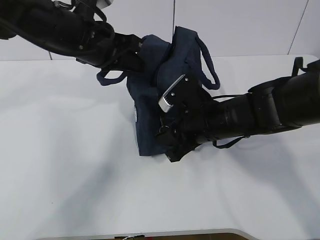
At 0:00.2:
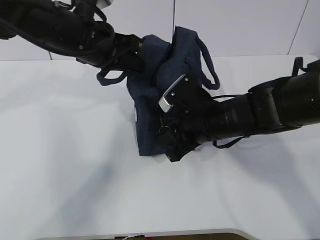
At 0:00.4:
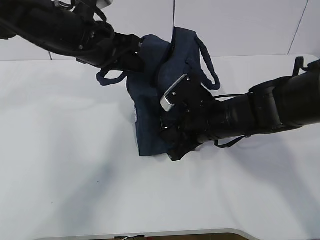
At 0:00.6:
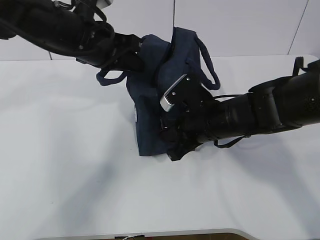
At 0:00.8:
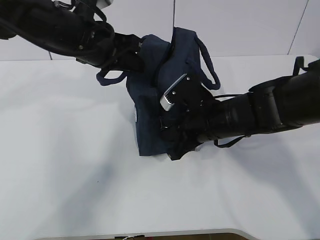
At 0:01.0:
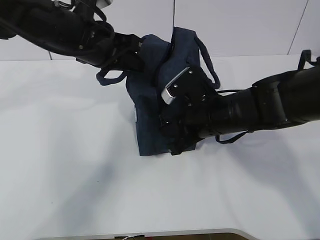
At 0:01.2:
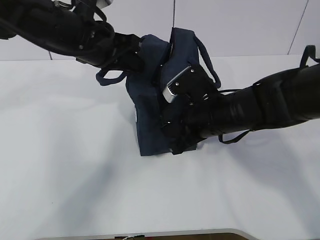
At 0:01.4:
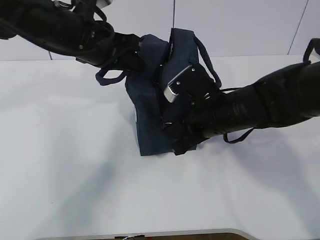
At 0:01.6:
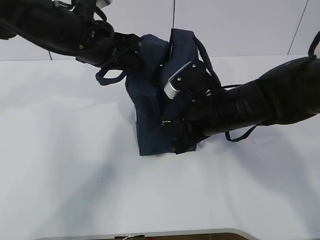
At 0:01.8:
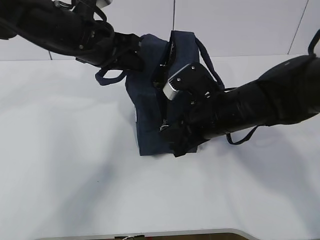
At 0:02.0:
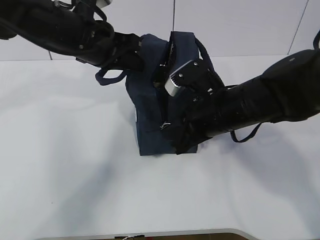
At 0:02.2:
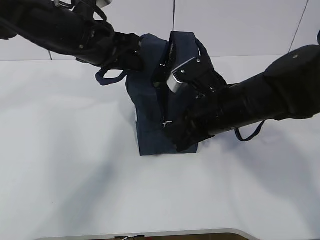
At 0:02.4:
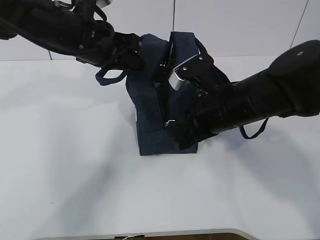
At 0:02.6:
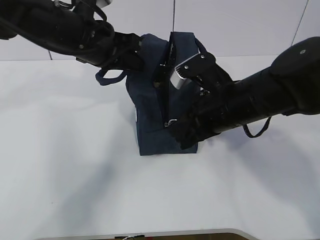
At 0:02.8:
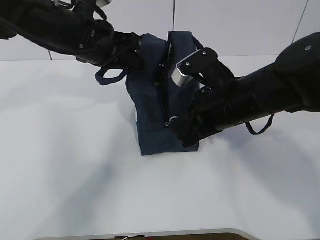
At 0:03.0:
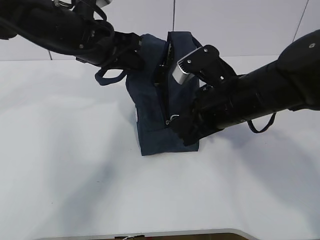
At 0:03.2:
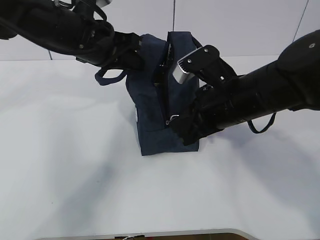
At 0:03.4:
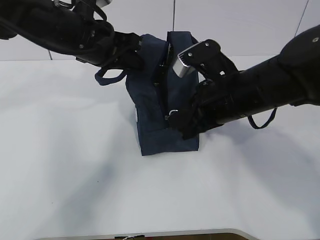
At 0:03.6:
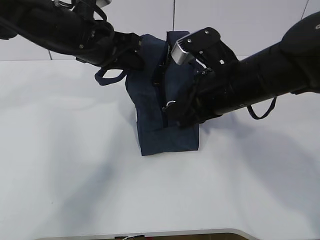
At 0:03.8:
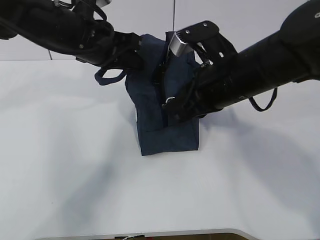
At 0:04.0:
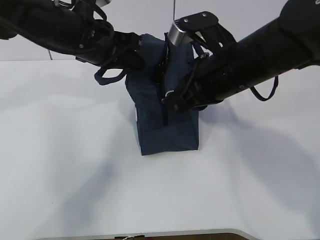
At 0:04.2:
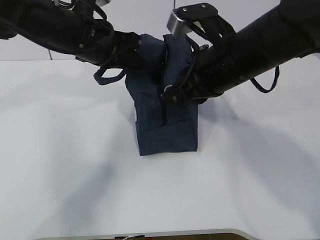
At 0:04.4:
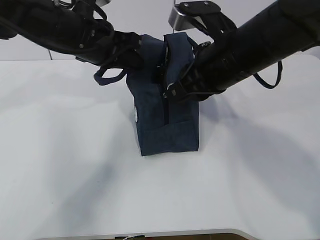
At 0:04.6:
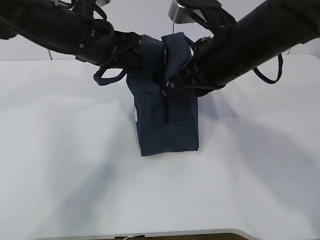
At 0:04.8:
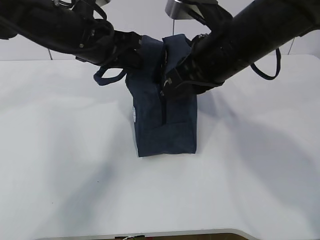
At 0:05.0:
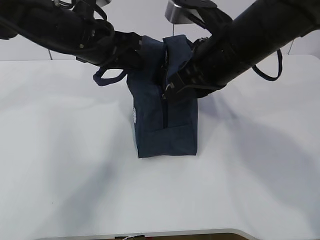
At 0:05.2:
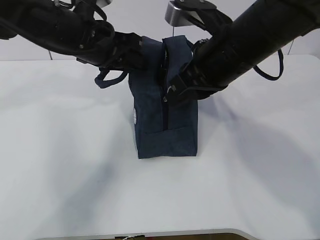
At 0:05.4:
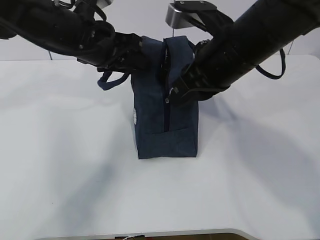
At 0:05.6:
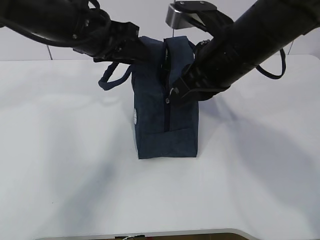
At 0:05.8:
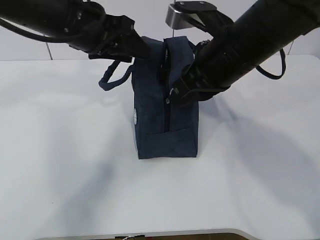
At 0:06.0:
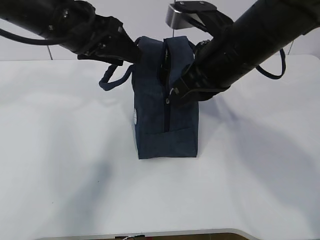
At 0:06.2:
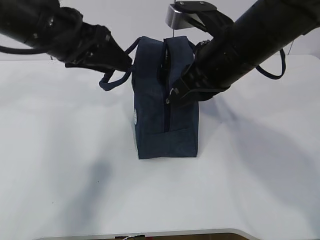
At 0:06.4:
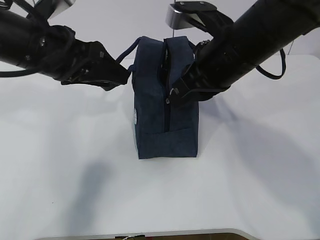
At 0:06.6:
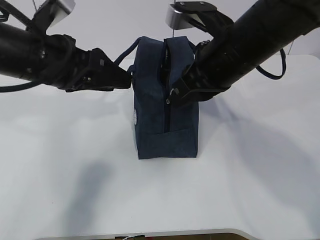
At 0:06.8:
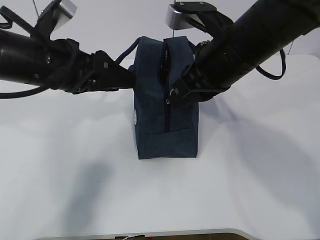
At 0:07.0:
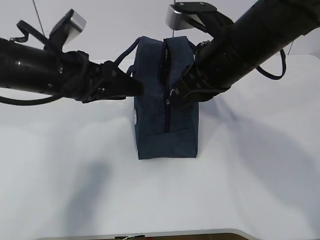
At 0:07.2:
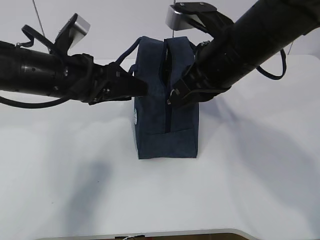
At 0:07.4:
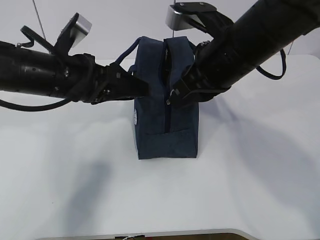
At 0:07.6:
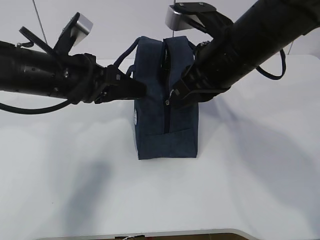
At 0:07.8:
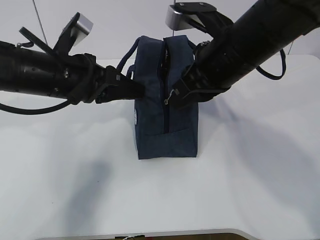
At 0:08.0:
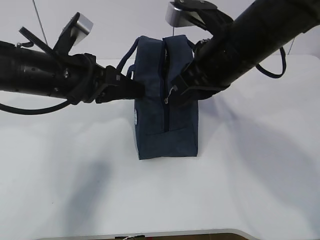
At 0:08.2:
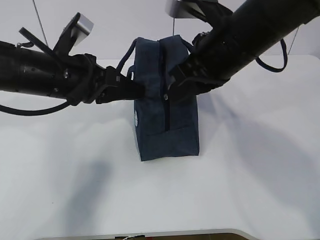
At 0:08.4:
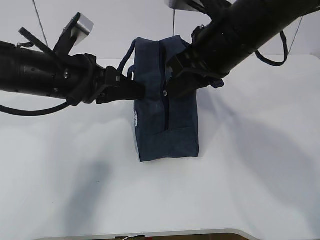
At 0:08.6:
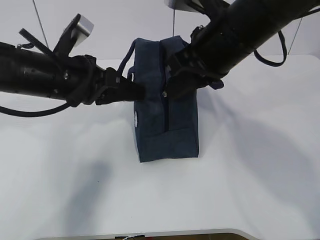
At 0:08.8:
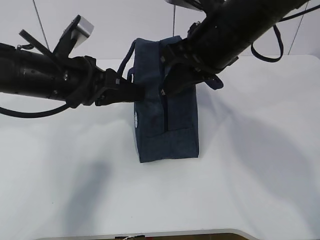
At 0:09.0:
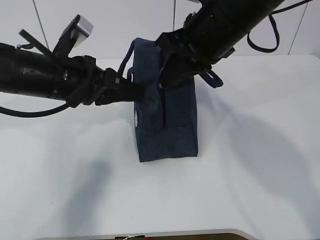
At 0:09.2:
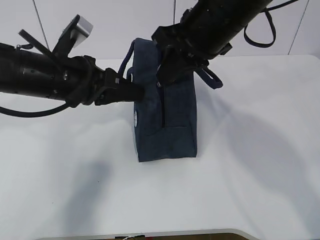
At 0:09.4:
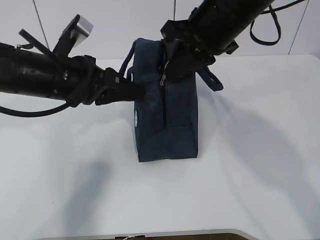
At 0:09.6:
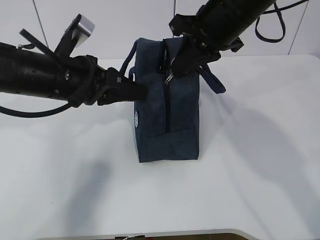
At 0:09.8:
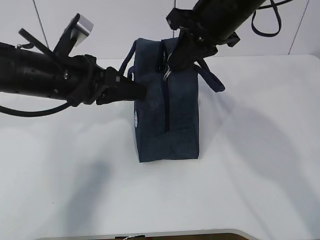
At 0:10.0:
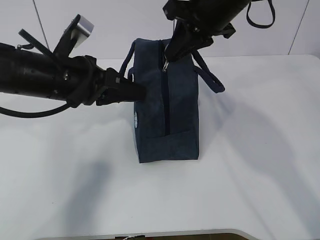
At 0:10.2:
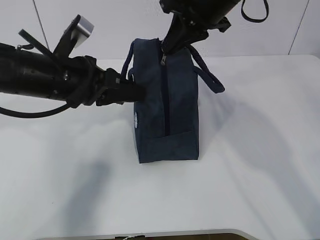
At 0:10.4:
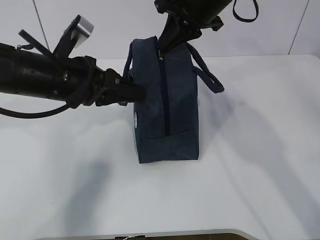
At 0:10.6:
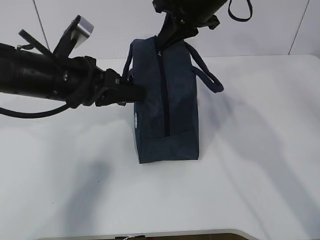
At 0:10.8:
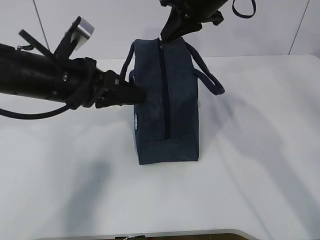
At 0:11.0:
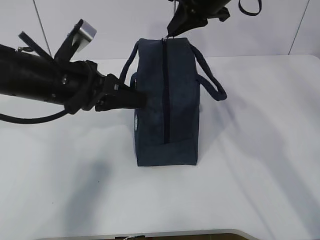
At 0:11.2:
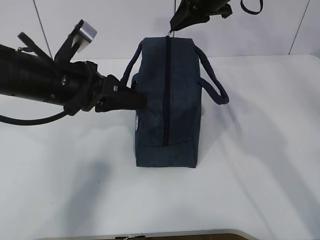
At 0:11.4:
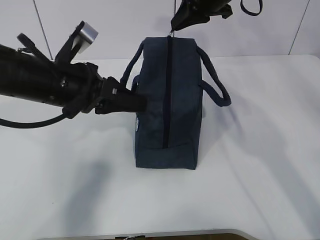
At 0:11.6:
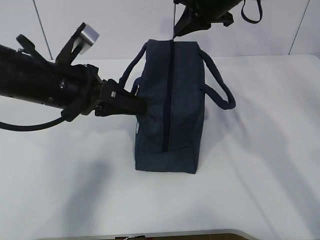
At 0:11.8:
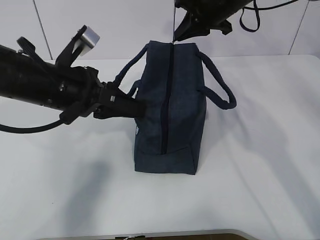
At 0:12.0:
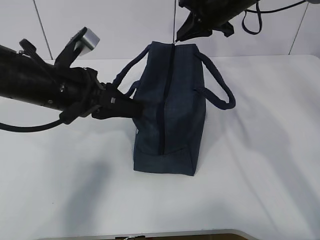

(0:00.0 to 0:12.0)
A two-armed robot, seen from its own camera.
Step, 0:00.0 - 0:09.2: Grab the lunch bag with your left hand.
0:00.0 - 0:01.6: There are only small adjustments of the grippers.
0:01.6 - 0:03.0: There are only small adjustments of the grippers.
0:03.0 - 0:04.4: The right gripper heads upward, covering approximately 5 cm.
0:04.4 - 0:06.0: The left gripper opens up.
0:06.0 - 0:07.6: The left gripper travels downward by some 5 cm, and closes up.
0:07.6 - 0:09.0: The left gripper closes up.
0:09.0 - 0:10.4: The right gripper moves forward, about 10 cm.
0:10.4 - 0:12.0: The right gripper goes about 10 cm forward and to the right.

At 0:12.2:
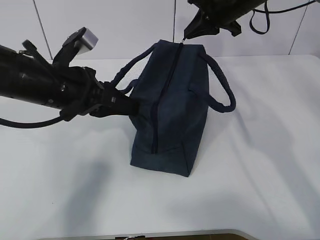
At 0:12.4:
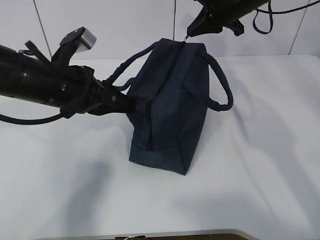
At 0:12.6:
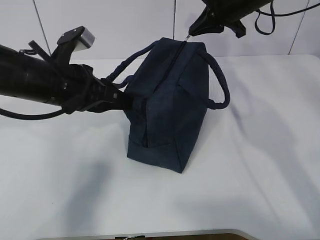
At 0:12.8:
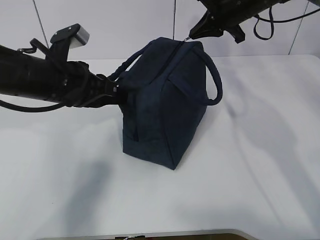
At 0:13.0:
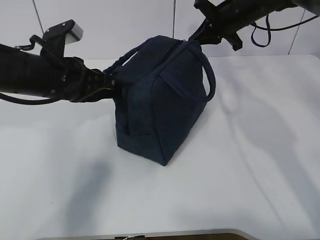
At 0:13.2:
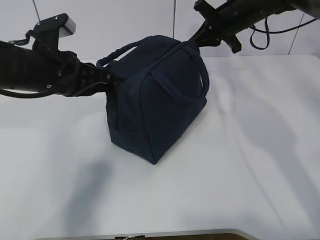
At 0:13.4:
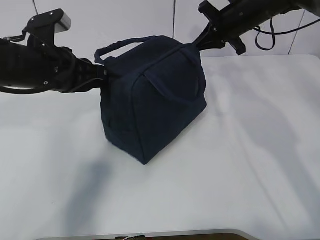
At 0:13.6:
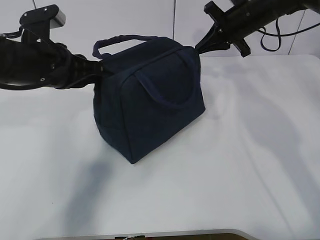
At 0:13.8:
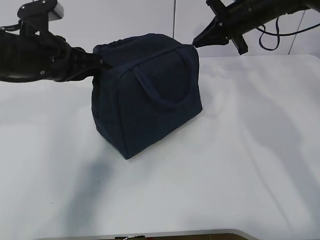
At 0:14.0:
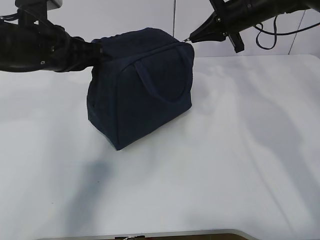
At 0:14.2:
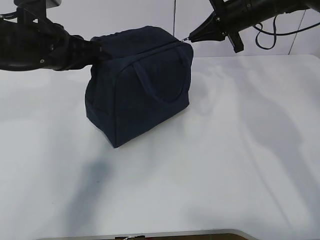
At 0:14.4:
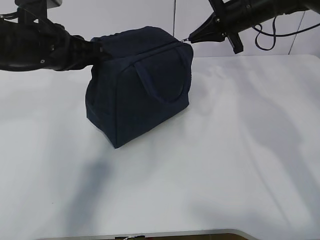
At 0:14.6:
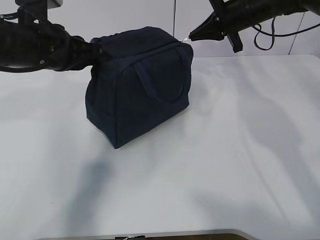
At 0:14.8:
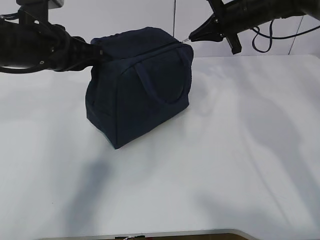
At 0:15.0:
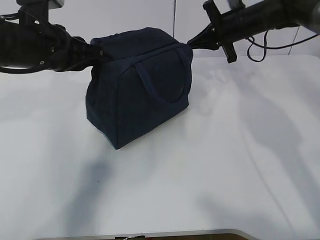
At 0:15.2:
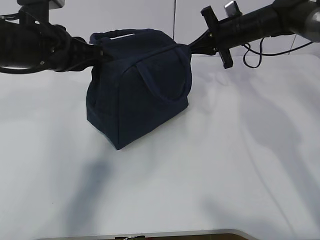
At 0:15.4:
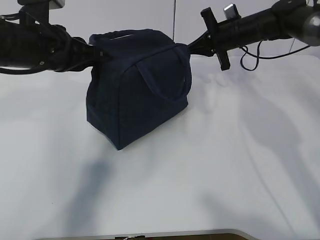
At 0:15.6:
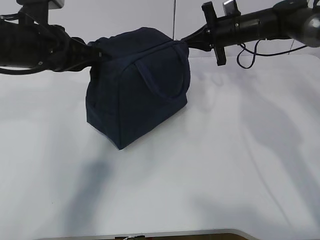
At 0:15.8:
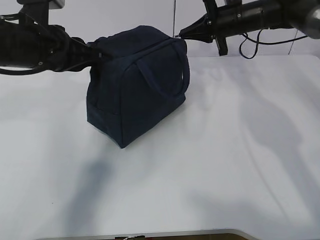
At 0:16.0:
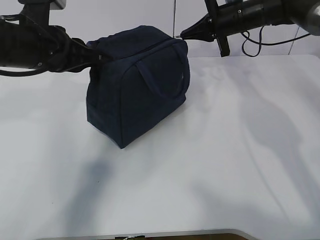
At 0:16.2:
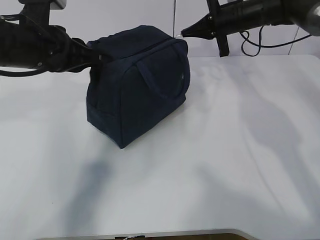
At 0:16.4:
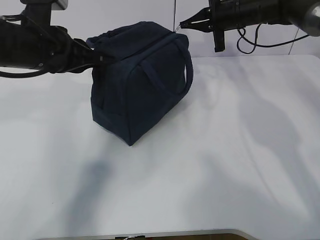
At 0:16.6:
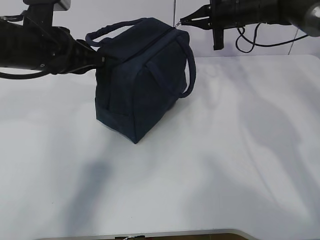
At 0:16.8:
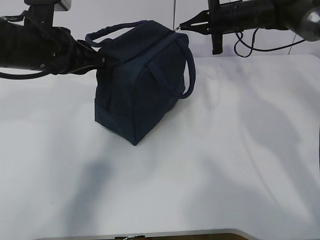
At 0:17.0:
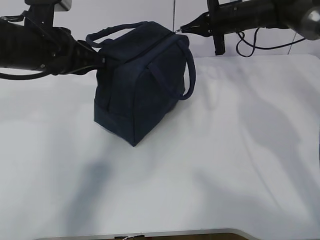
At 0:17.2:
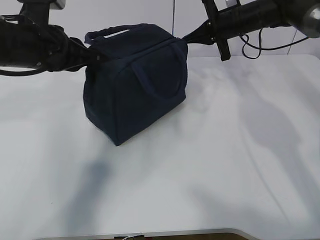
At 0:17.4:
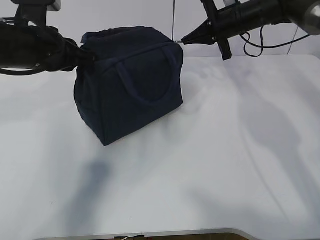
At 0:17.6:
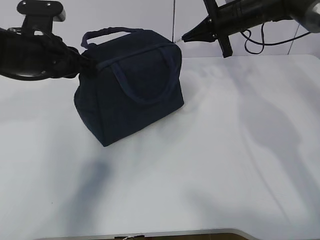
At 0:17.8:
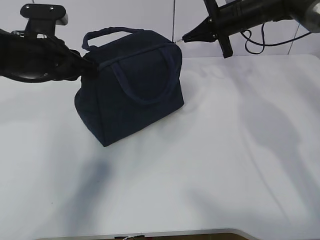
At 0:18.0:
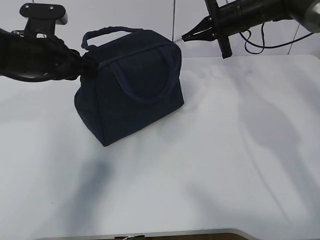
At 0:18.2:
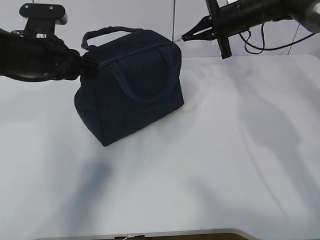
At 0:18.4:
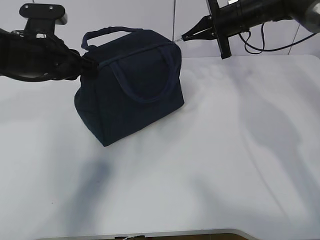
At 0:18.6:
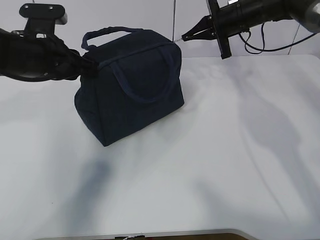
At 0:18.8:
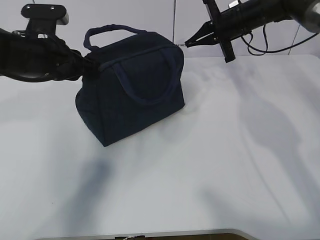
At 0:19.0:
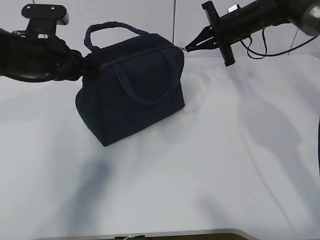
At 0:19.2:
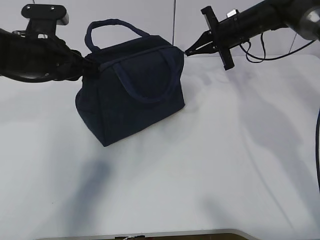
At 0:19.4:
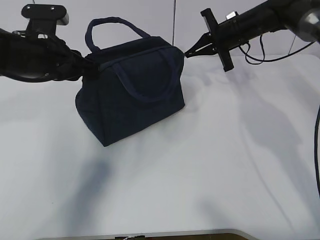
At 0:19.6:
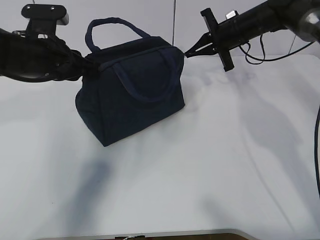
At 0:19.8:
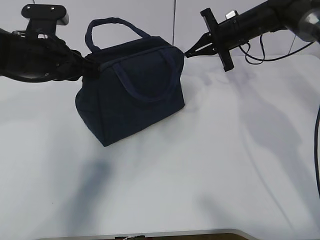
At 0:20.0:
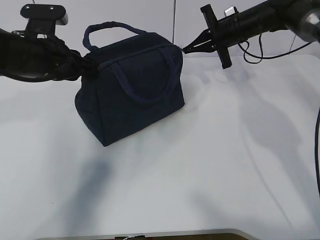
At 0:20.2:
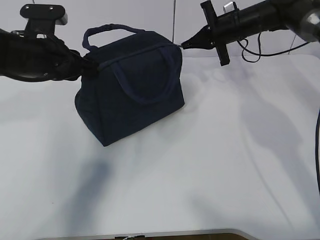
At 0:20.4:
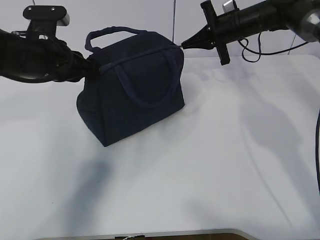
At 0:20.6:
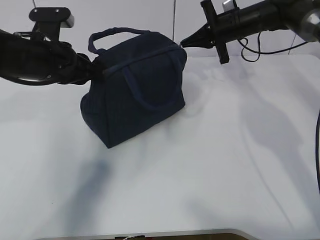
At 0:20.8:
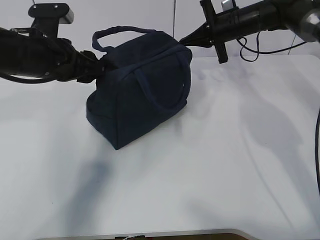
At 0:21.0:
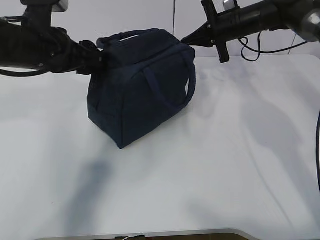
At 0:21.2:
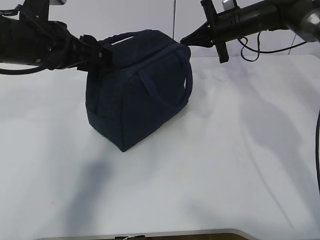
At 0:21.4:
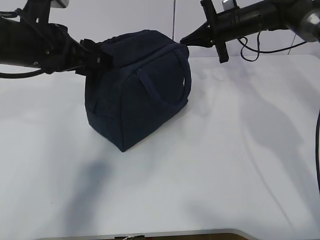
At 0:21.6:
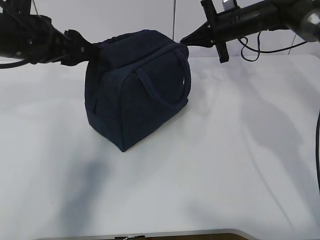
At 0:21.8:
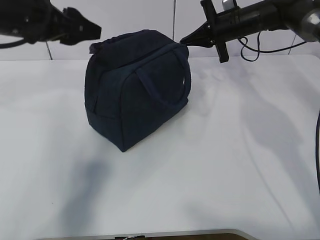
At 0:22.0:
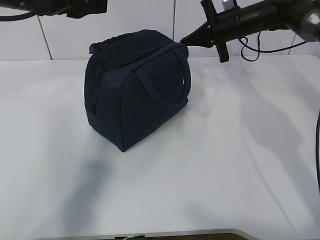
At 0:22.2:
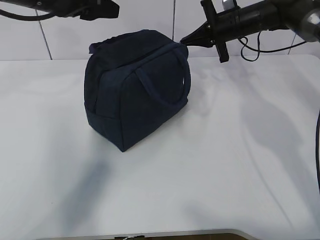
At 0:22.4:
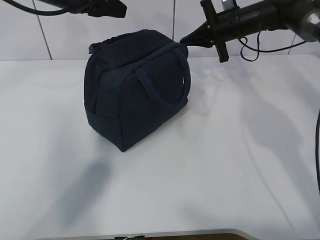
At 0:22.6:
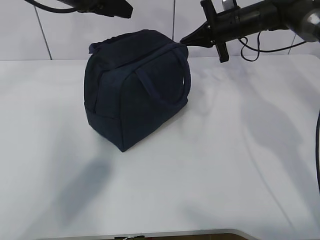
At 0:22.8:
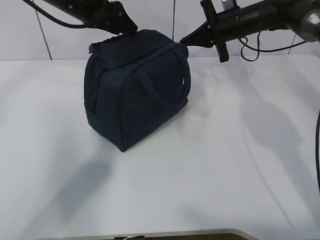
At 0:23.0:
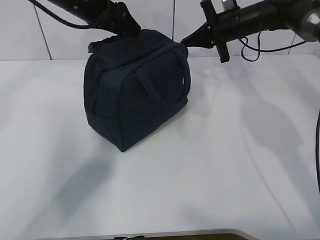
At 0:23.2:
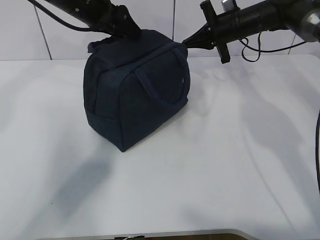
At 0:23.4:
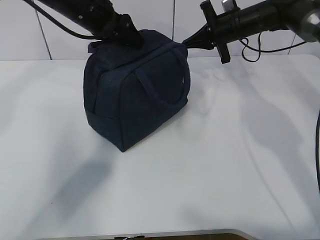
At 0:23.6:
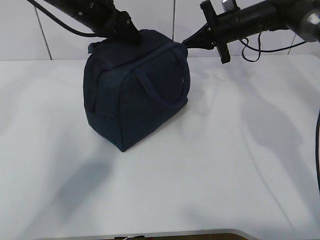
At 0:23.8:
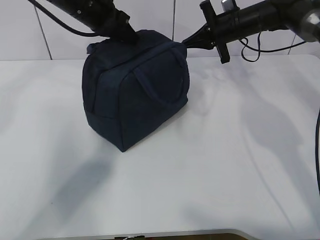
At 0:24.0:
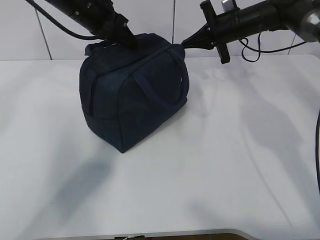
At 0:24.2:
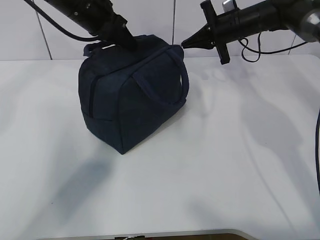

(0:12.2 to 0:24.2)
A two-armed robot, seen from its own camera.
Step, 0:13.6 - 0:14.8: Grab the lunch bag with your left hand.
0:12.2 - 0:13.8: The left gripper shifts by some 5 cm.
0:13.8 - 0:15.2: The right gripper changes place by about 5 cm.
0:16.6 - 0:19.8: The grippers move only a little.
0:19.8 - 0:21.2: The left gripper opens.
0:21.2 - 0:22.6: The left gripper moves forward and upward, some 15 cm.
0:22.6 - 0:24.2: The left gripper closes up.
